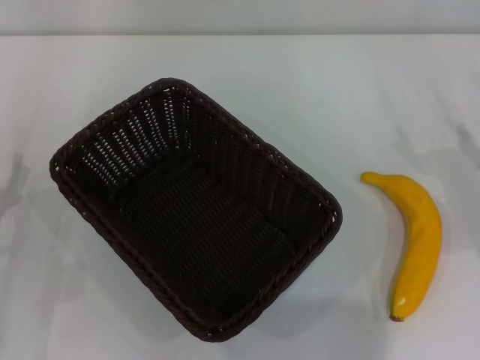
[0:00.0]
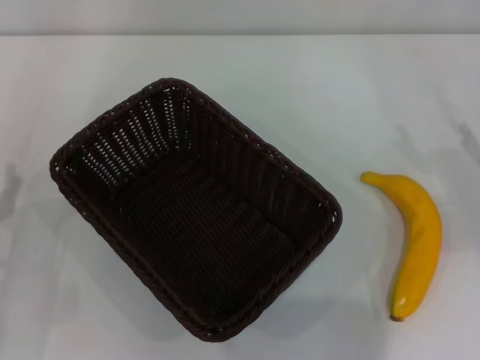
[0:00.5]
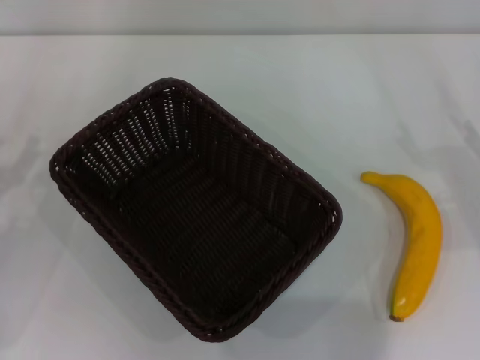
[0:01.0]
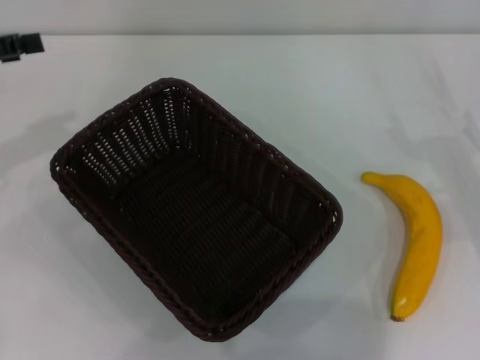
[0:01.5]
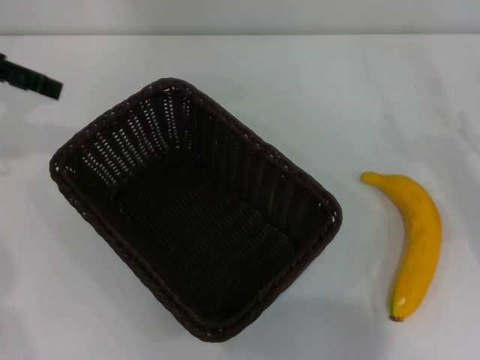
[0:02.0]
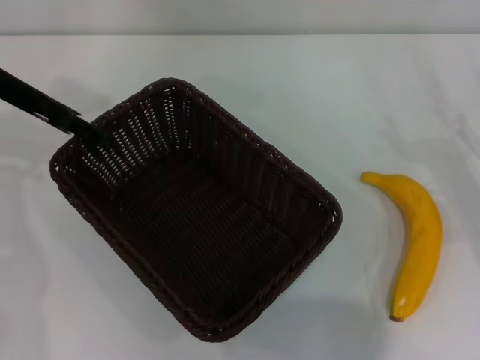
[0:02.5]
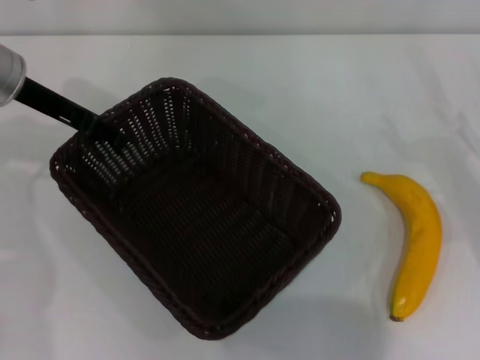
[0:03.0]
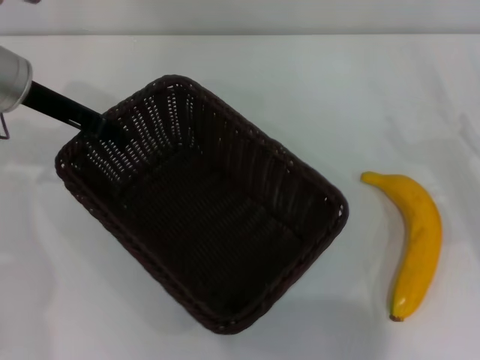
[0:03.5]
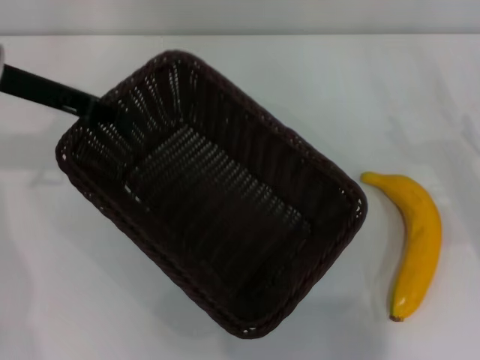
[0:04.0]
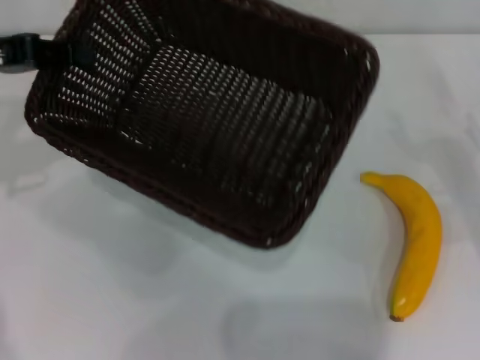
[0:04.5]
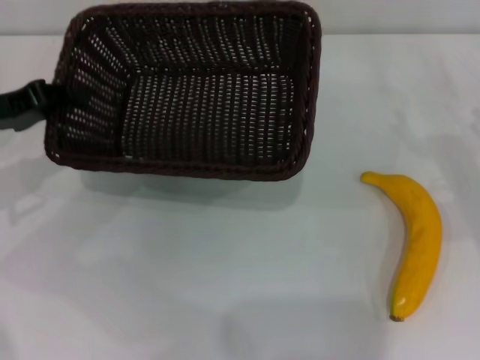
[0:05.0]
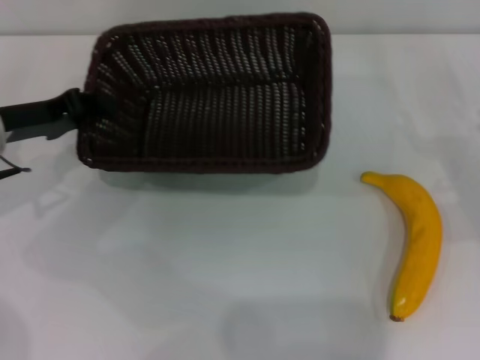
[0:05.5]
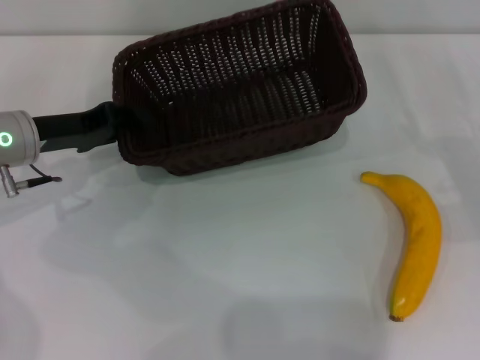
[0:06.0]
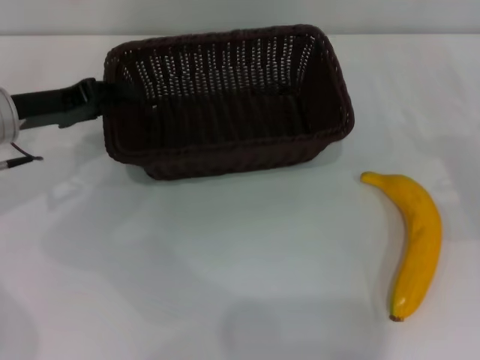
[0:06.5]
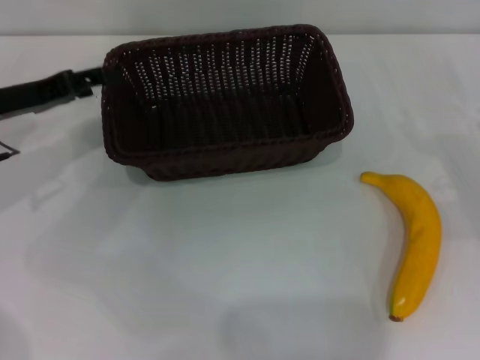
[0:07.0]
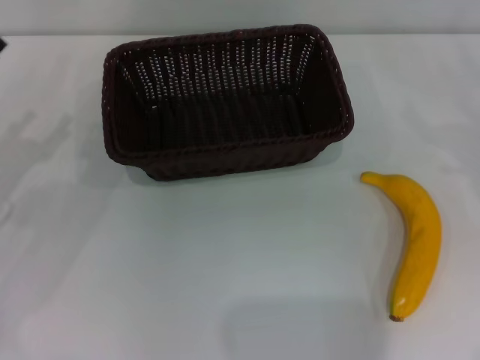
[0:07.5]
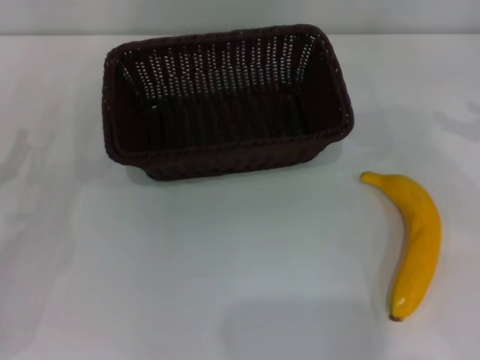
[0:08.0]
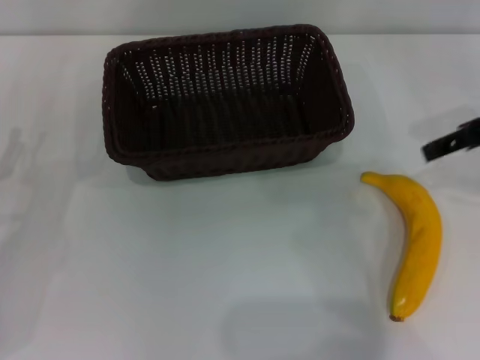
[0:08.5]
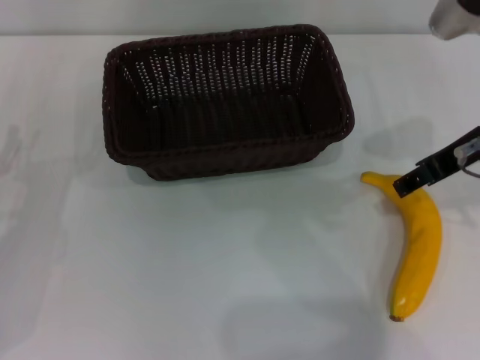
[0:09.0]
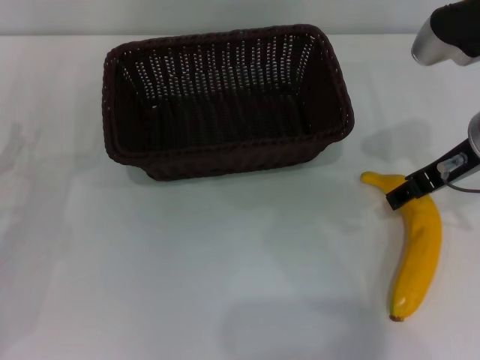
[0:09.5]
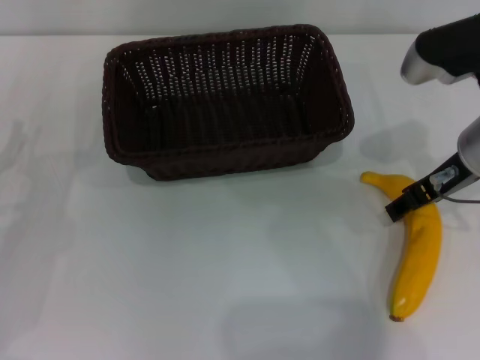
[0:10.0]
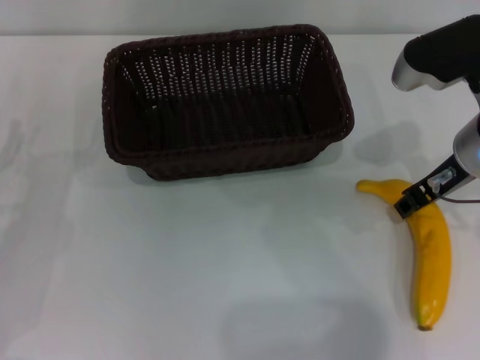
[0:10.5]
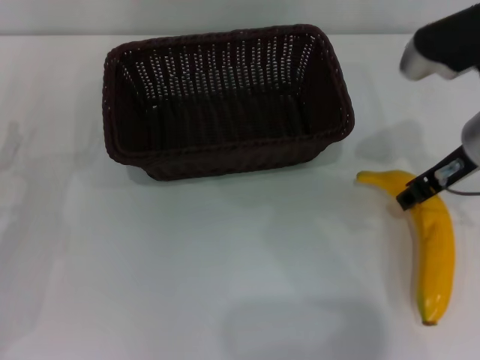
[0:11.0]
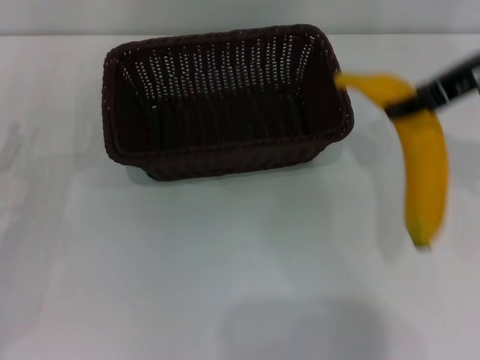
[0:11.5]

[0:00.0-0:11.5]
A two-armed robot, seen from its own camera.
Step, 0:00.0 to 0:04.0: Pick up the dark basket with the left gripper.
Step, 0:04.5 to 0:07.0: Place the dark basket in the center of view with the left gripper.
Step, 0:07.5 to 0:11.0: Pick up the banana with the right gripper.
0:00.0 to 0:02.0: The left gripper shifts some 30 cm upward and forward.
0:02.0 to 0:04.0: The left gripper shifts roughly 10 cm downward and to the right, and closes up.
0:04.0 to 0:06.0: The left gripper heads downward, covering roughly 10 cm.
0:06.0 to 0:07.5: The right gripper changes place by about 5 cm, while the left gripper shifts some 10 cm to the left and backward, and opens its fingers.
0:07.5 to 0:09.5: The right gripper goes approximately 25 cm to the left and upward.
0:09.5 to 0:11.5: The right gripper heads upward, covering roughly 10 cm, and closes.

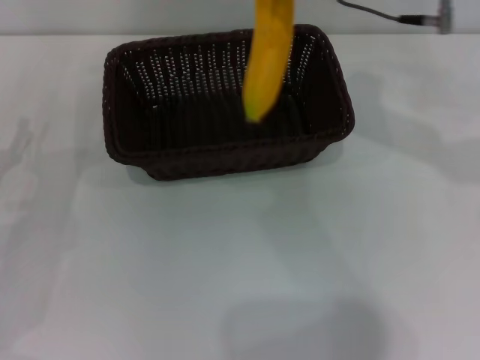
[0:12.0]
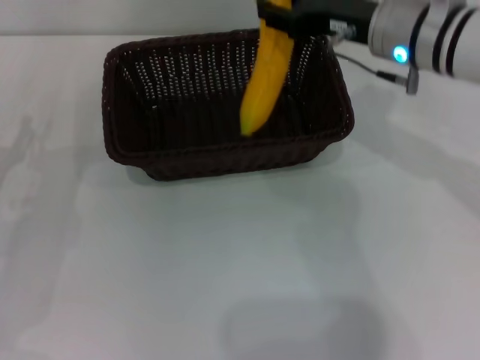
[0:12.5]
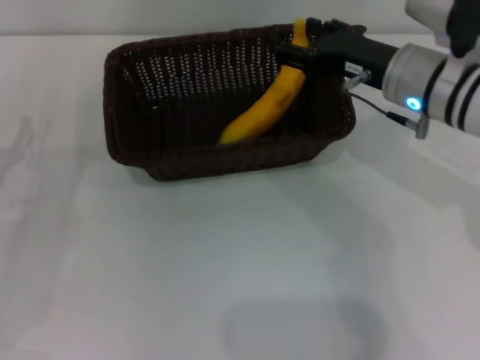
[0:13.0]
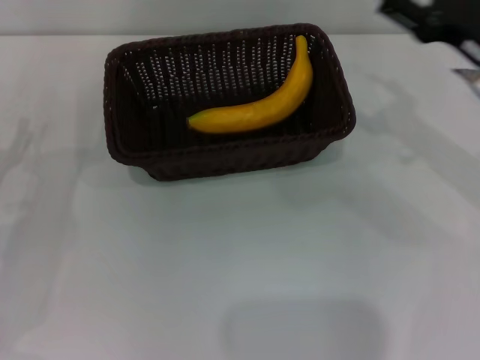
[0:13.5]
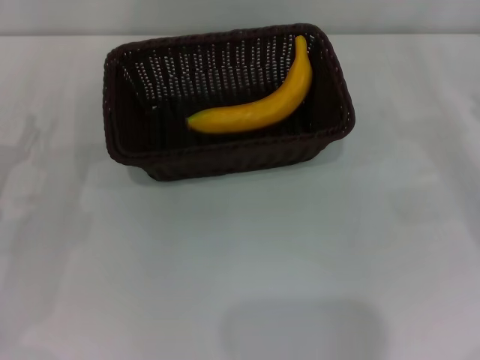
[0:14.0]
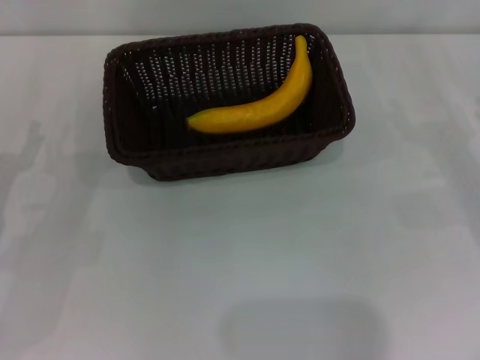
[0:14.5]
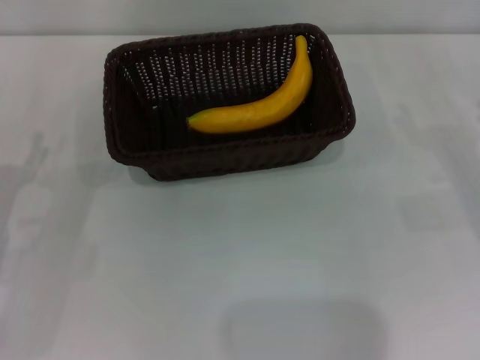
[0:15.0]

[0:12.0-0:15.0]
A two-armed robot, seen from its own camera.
Step, 0:12.0 to 0:13.0: Place the banana into the dark basket with the right gripper.
0:12.0 to 0:13.5: The right gripper travels to the right, downward and backward by roughly 20 cm, and opens up.
0:13.5 to 0:15.0: The right gripper shifts about 15 cm to the right and downward.
